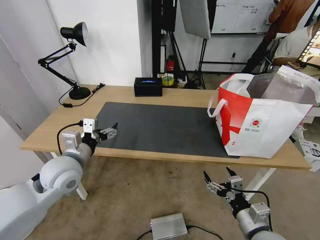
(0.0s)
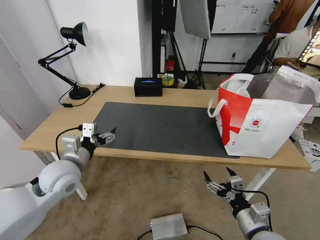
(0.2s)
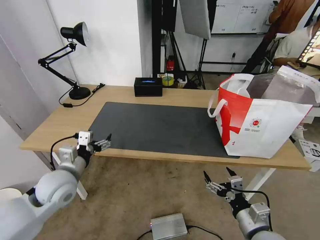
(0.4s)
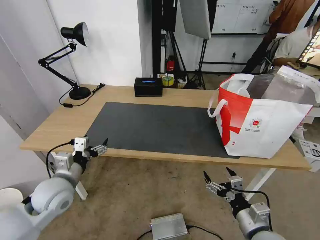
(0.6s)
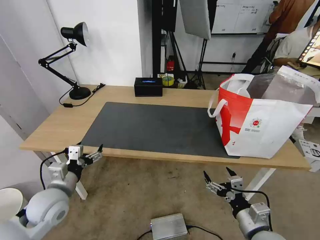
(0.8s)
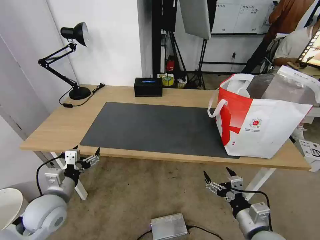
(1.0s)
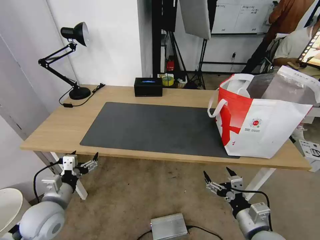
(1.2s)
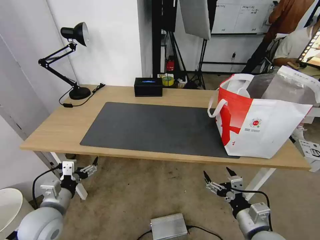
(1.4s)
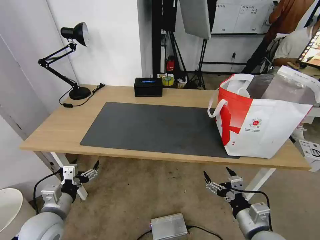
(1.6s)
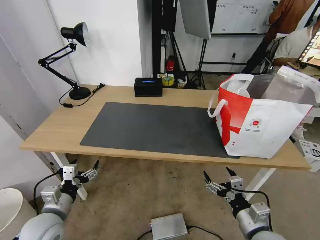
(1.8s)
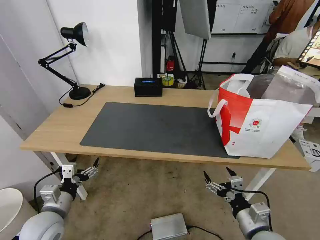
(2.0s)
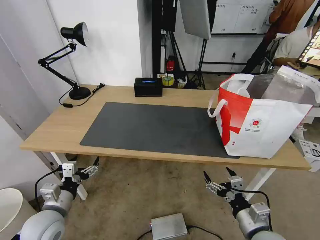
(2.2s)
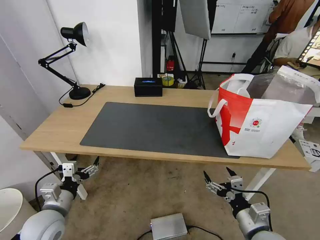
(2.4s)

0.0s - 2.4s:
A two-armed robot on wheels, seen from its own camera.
Task of the whole recording: Pick up the trash from the table and place it into the takeout bag.
0.0s - 1.2s: The left gripper goes some 15 cm downward, backward and to the left.
1.2s - 2.4s: The grippers stay close to where they were, moving slightly.

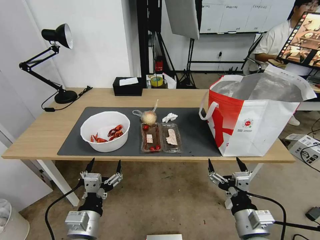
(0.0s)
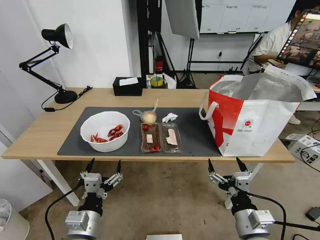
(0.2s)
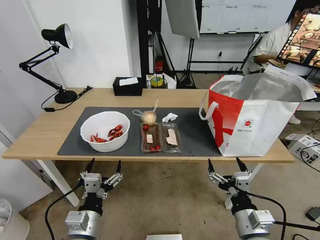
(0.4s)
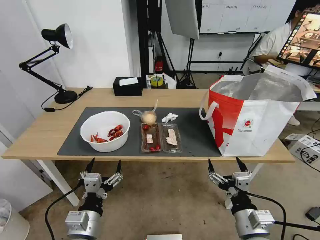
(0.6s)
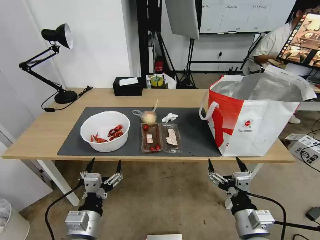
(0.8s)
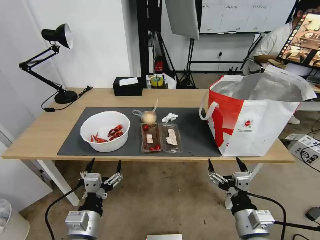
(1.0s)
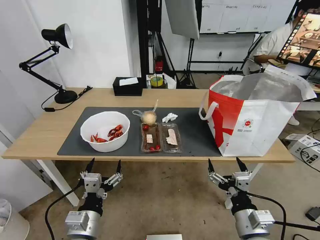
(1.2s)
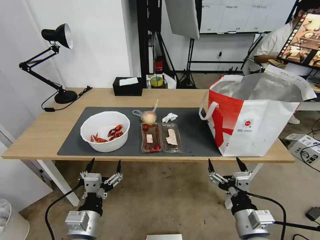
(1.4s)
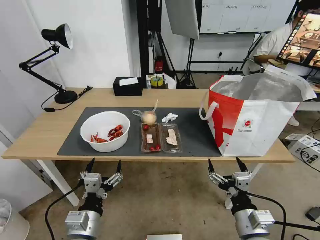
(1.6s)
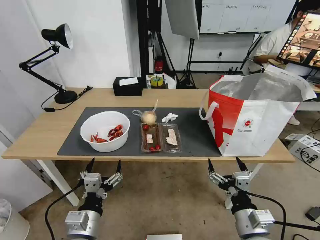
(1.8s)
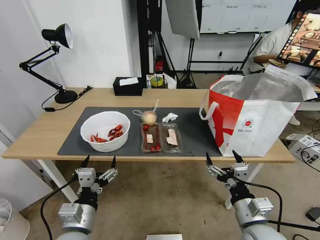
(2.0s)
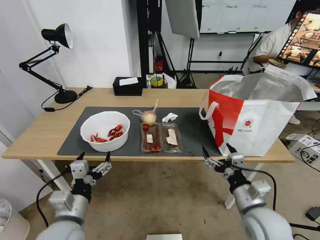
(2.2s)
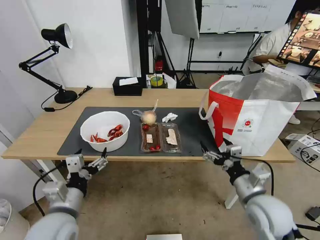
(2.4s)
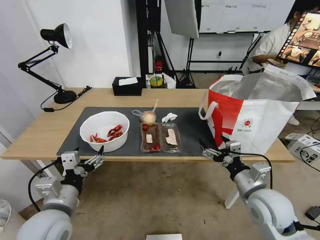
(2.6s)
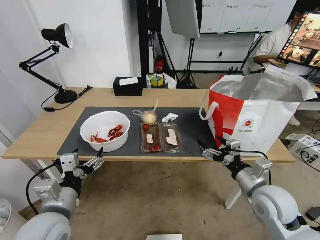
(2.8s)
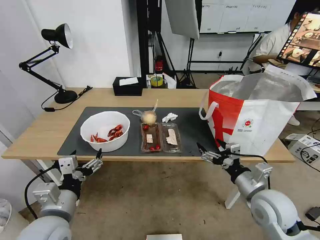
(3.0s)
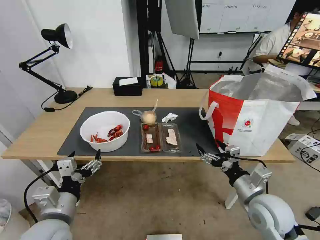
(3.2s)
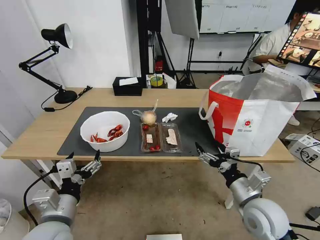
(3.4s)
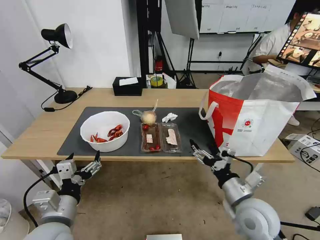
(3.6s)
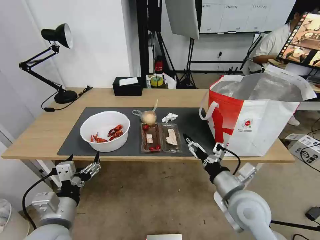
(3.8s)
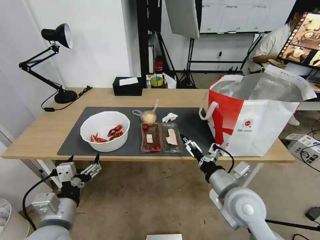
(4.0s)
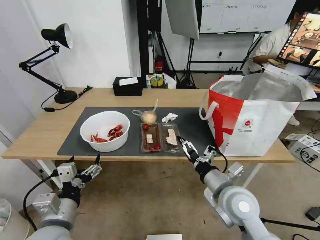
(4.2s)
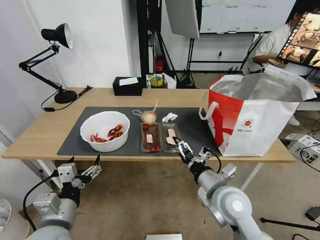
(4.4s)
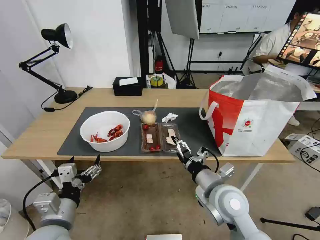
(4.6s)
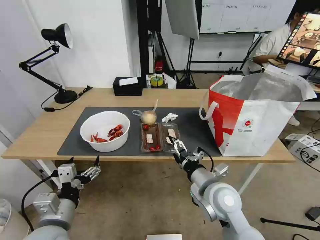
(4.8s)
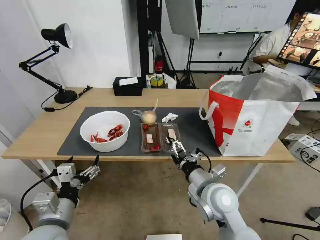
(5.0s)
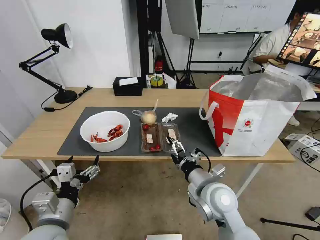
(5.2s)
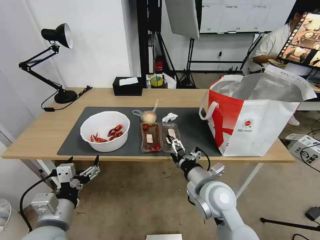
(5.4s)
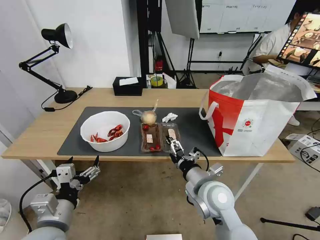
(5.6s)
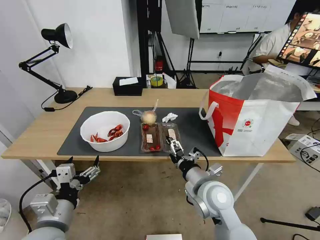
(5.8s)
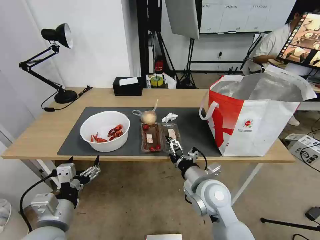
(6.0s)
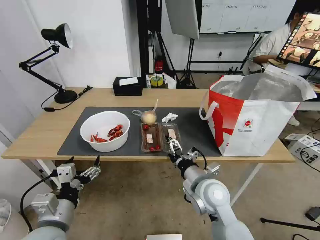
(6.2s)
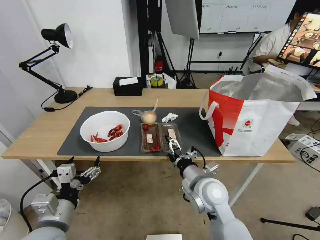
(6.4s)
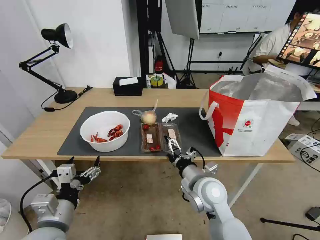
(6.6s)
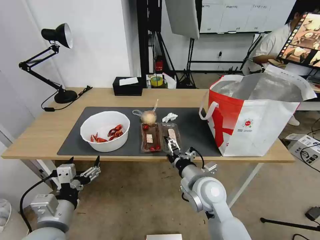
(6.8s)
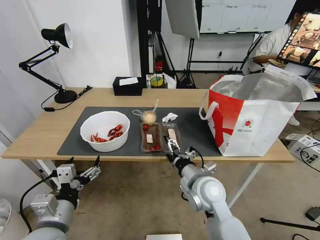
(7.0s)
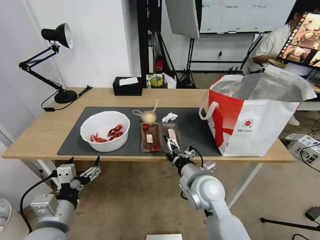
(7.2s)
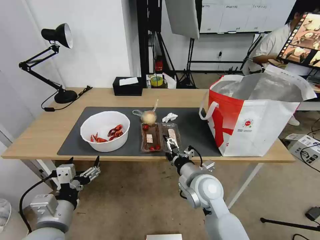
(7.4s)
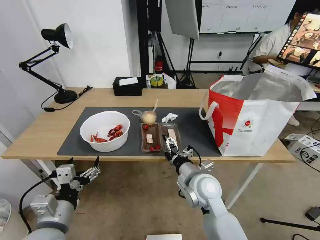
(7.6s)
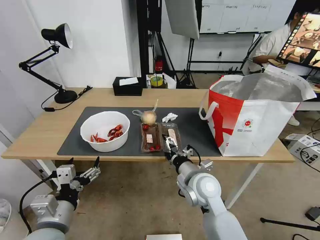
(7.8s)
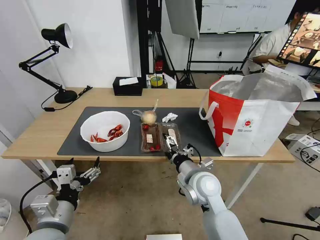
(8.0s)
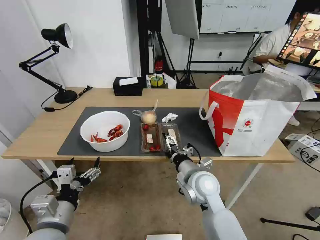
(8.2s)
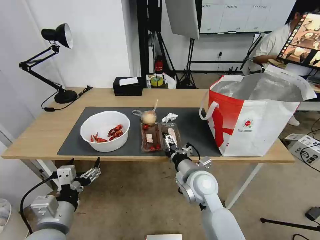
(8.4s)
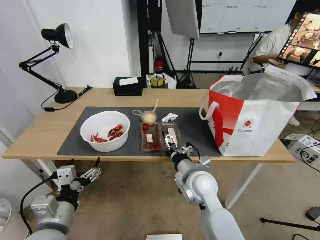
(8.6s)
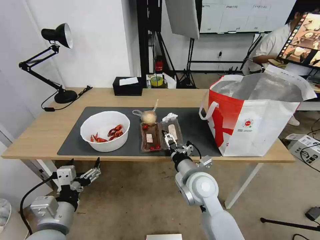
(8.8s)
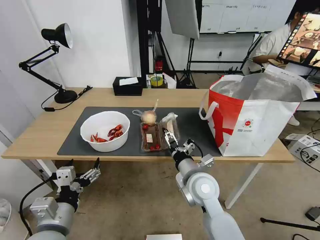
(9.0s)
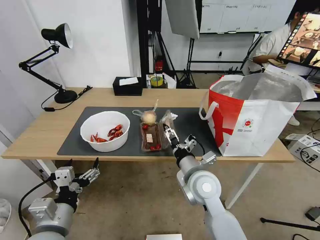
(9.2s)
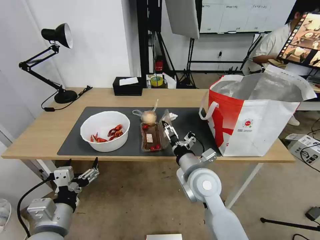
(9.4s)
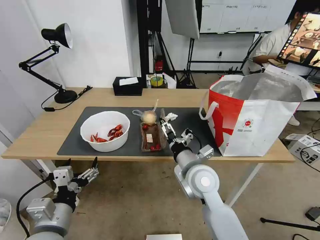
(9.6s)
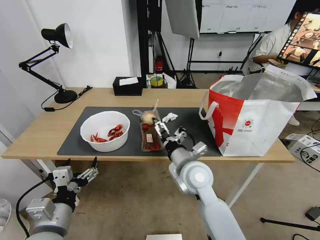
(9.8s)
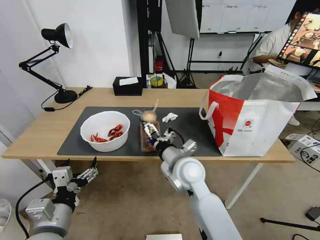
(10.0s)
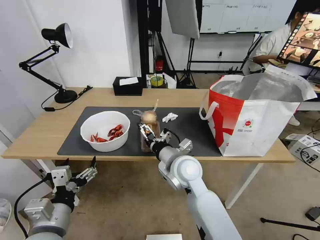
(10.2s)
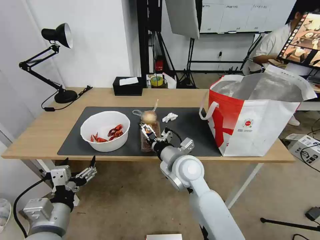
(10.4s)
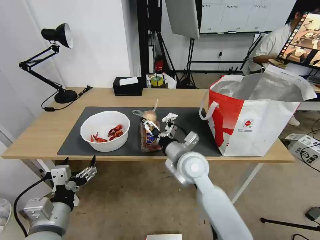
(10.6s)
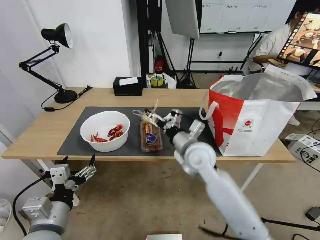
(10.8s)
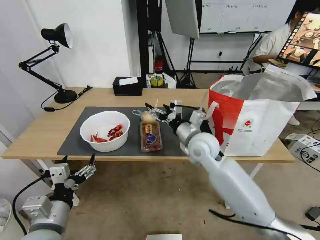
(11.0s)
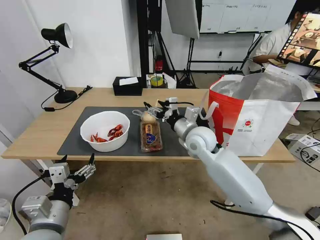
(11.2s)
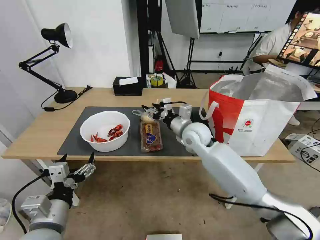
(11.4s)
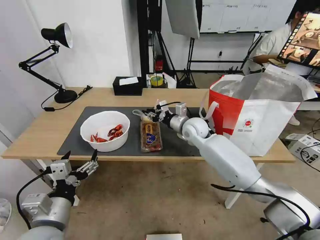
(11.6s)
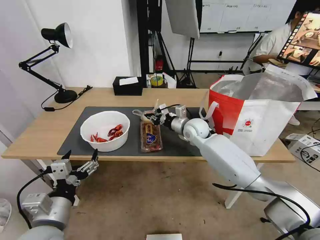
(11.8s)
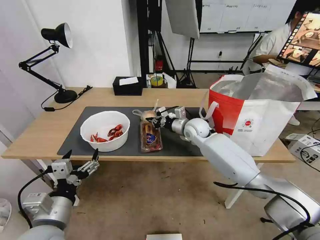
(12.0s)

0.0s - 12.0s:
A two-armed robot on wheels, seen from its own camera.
Task of the whole recording: Pick up the trash from the table and place it into the takeout bag.
1.6s - 3.0s: The right gripper moves forward and to the right, some 10 cm. The left gripper goes some 10 cm upward and to the left.
3.0s - 4.4s: The right gripper travels to the left by about 10 cm.
4.4s - 6.0s: The right gripper moves some 5 cm.
6.0s - 9.0s: The grippers move only a little.
9.0s - 10.4s: The right gripper shifts by roughly 5 cm.
10.4s - 12.0s: The right gripper heads forward, covering some 20 cm, and closes its fingers.

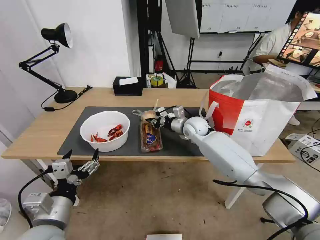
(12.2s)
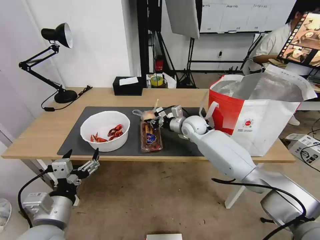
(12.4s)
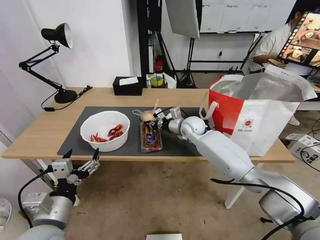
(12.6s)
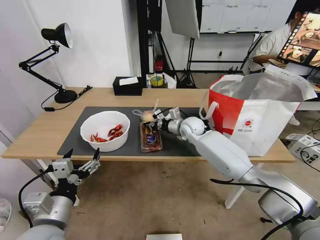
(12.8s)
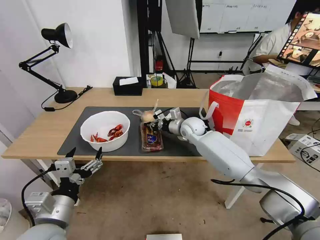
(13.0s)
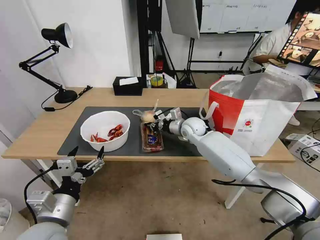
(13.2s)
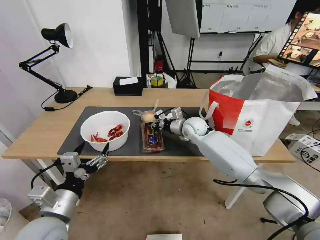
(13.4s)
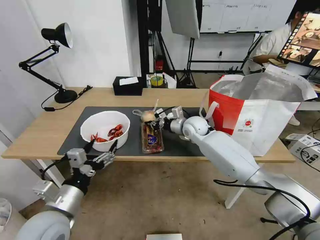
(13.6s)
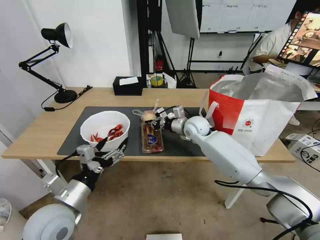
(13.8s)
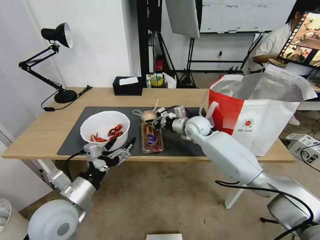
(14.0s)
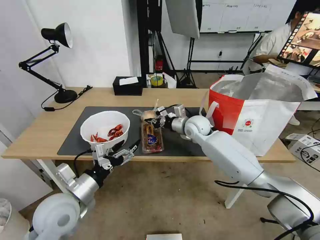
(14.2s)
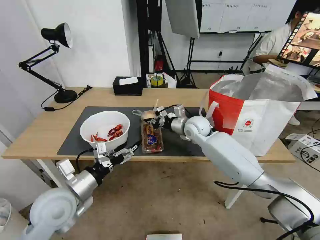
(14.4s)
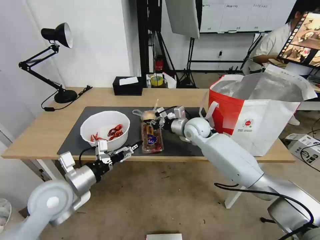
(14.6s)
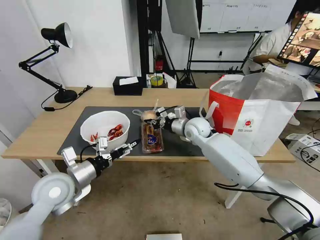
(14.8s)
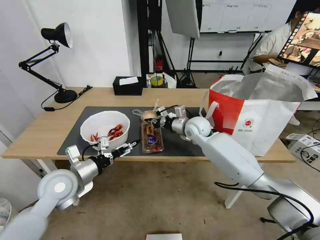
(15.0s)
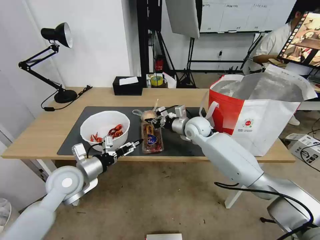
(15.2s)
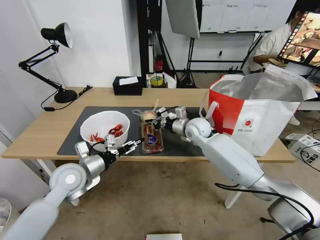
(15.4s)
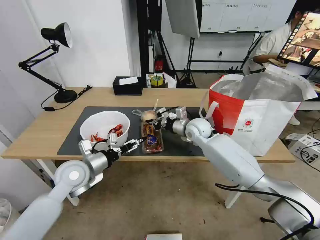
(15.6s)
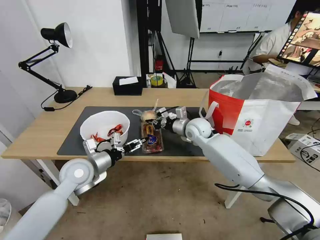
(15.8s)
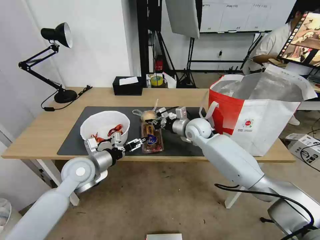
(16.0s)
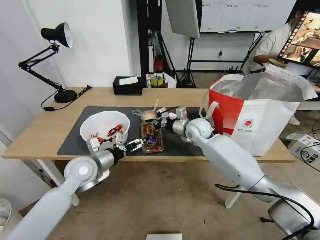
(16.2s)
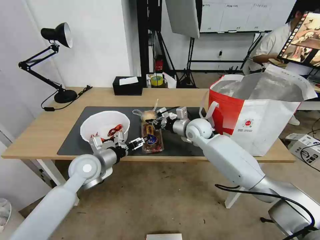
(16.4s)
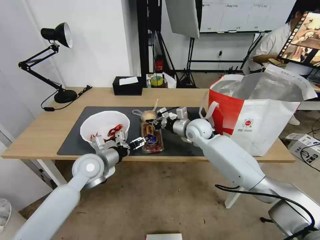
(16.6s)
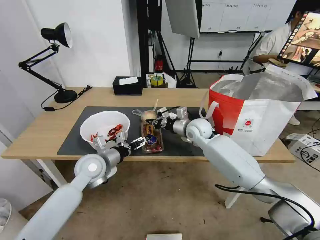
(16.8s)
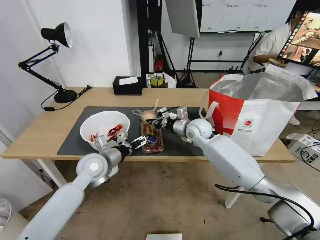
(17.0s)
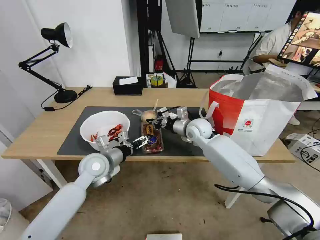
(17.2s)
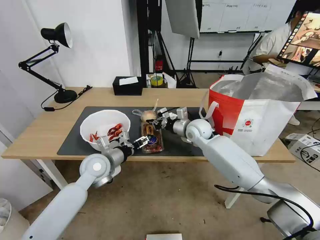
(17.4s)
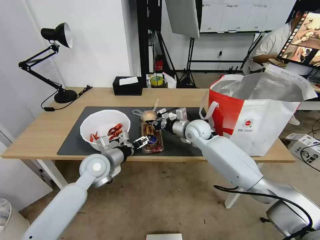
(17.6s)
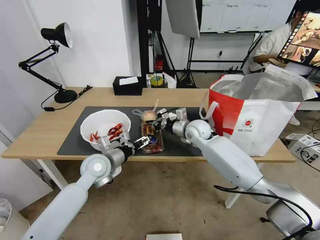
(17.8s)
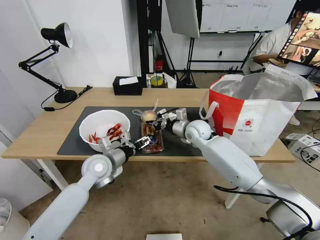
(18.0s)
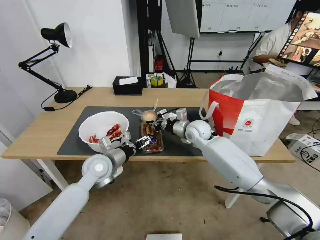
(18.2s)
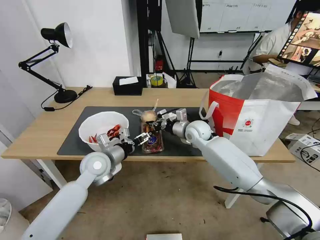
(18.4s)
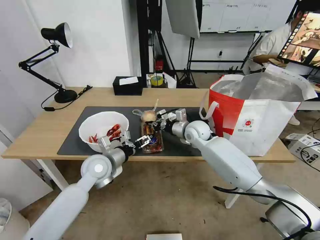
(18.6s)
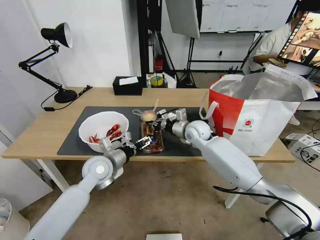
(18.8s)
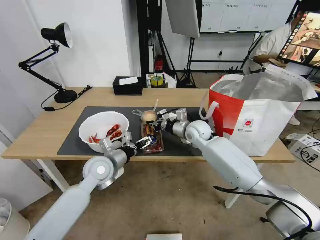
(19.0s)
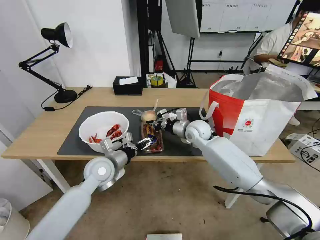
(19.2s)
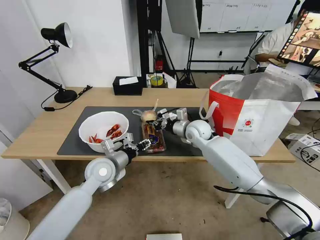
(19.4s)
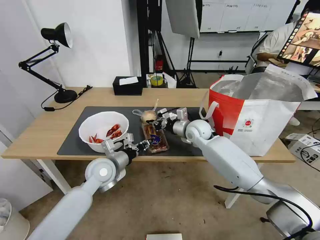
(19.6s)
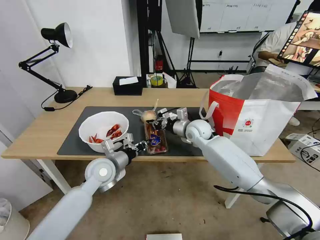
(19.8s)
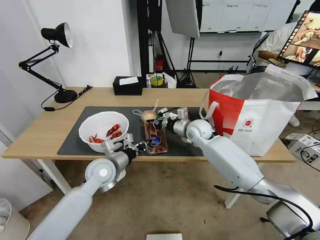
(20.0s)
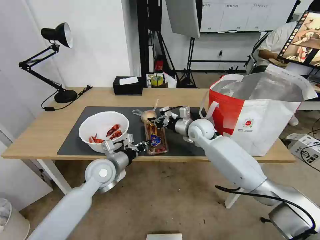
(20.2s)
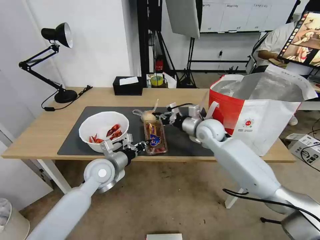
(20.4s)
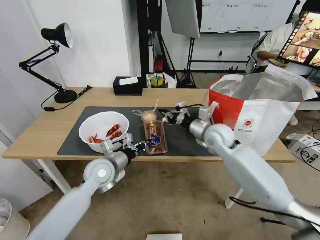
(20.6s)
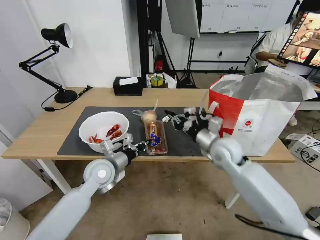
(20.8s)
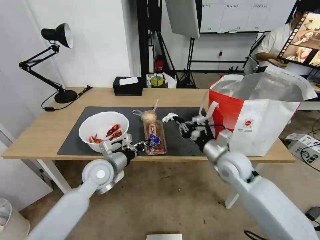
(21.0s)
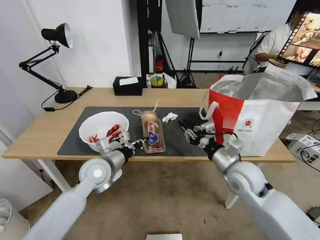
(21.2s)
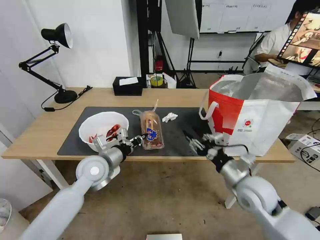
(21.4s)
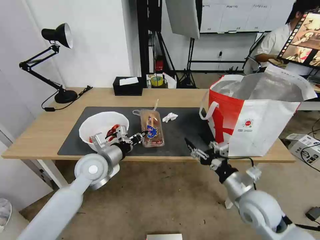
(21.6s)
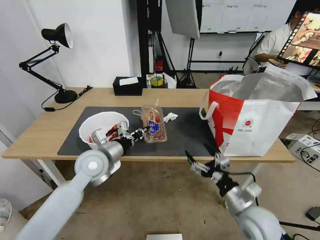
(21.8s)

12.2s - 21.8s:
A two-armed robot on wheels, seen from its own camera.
Task of the whole recording: Pick up the trash from the table and place it into the takeout bag.
13.8s - 15.4s: The left gripper heads forward, covering roughly 10 cm.
15.4s - 17.0s: The left gripper shifts by about 5 cm.
17.0s - 18.6s: The grippers stay close to where they were, moving slightly.
18.6s - 20.2s: The left gripper closes.
20.2s - 21.8s: The left gripper moves upward, roughly 5 cm. Meanwhile the right gripper goes about 30 cm backward, and opens.
